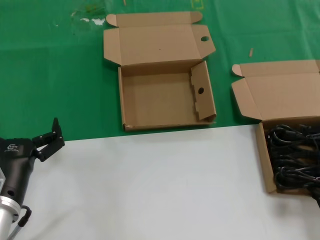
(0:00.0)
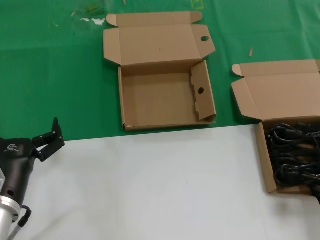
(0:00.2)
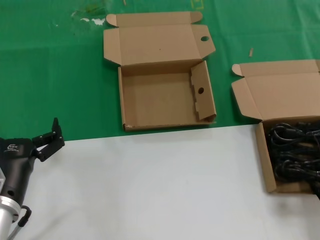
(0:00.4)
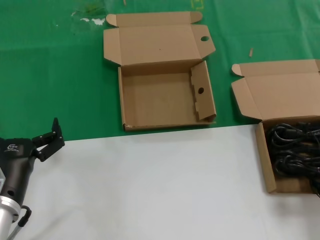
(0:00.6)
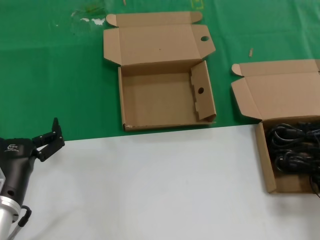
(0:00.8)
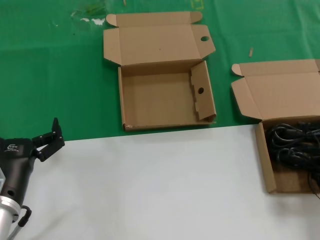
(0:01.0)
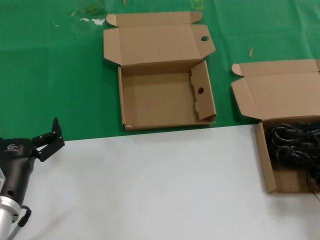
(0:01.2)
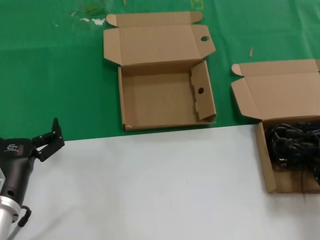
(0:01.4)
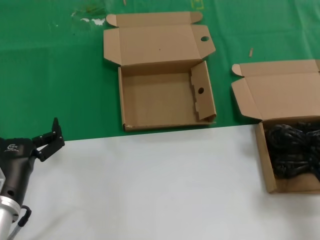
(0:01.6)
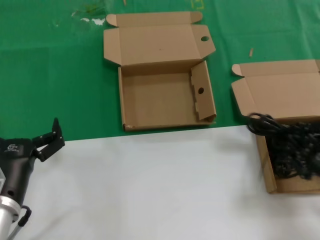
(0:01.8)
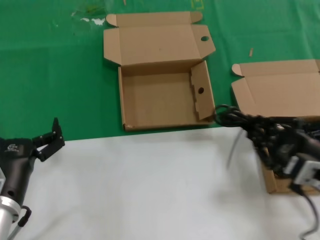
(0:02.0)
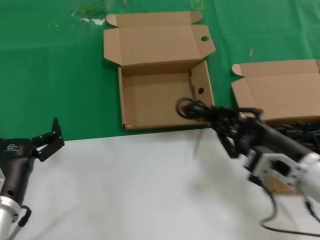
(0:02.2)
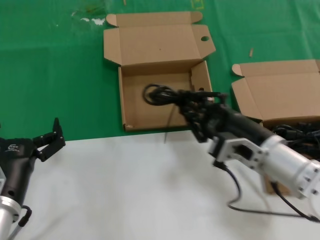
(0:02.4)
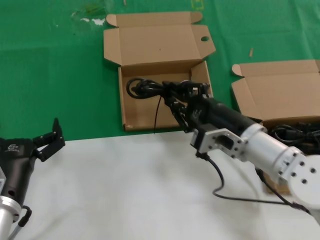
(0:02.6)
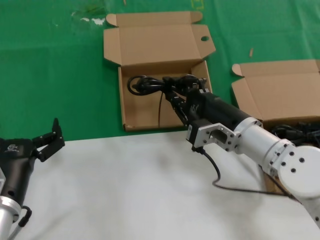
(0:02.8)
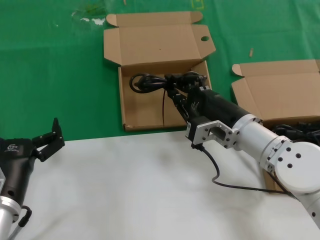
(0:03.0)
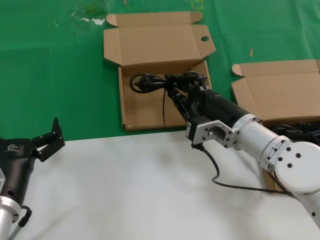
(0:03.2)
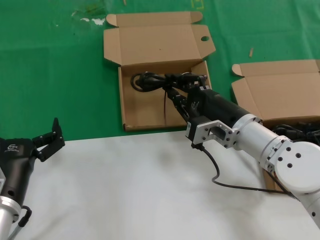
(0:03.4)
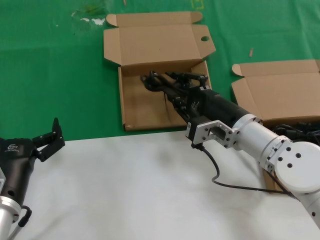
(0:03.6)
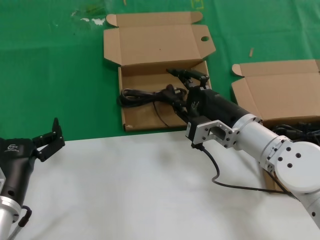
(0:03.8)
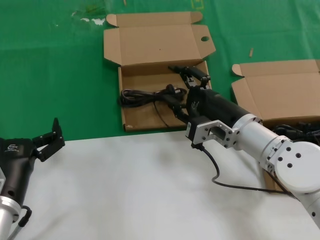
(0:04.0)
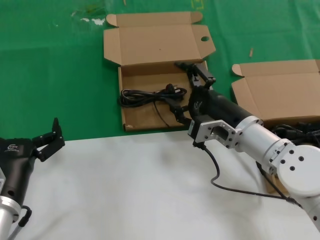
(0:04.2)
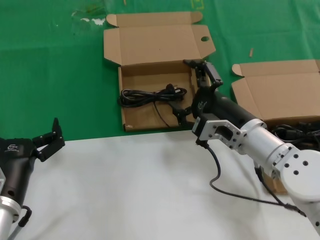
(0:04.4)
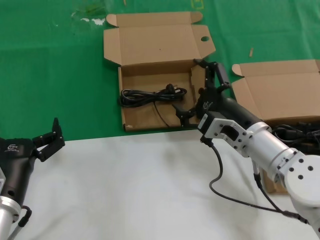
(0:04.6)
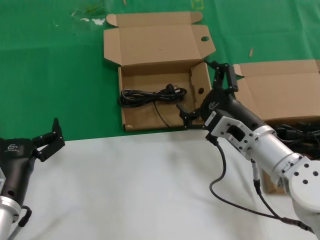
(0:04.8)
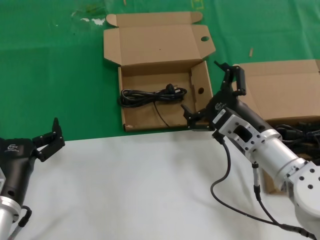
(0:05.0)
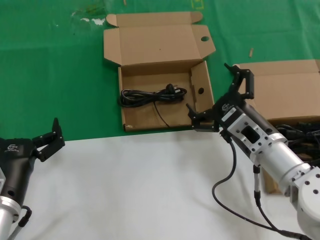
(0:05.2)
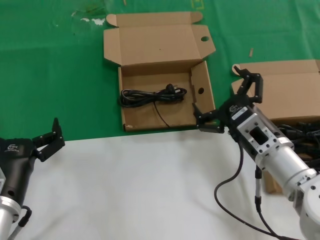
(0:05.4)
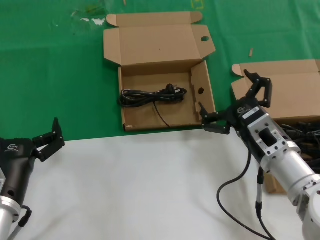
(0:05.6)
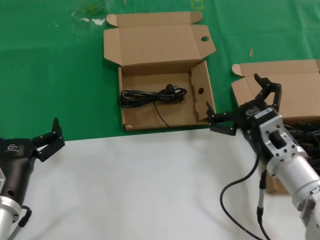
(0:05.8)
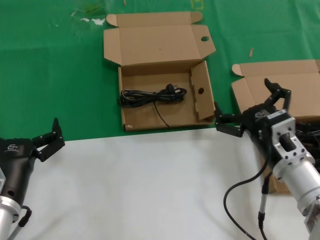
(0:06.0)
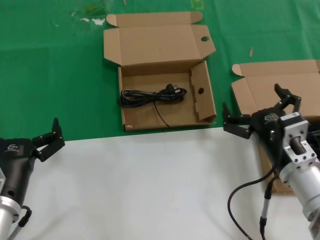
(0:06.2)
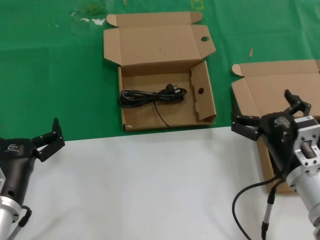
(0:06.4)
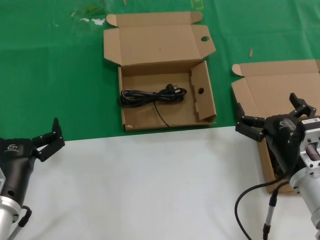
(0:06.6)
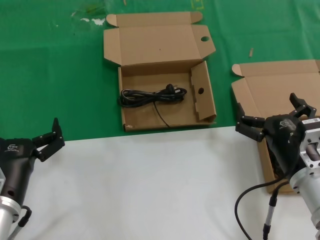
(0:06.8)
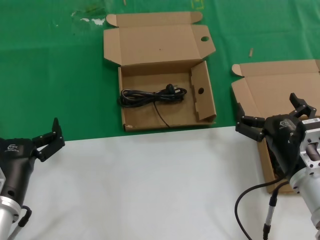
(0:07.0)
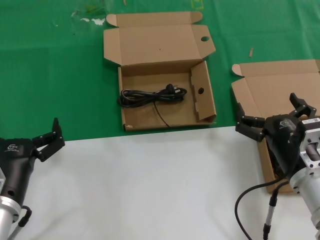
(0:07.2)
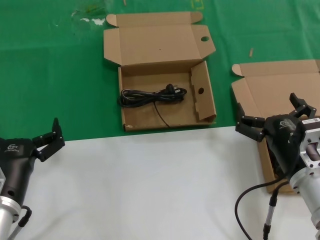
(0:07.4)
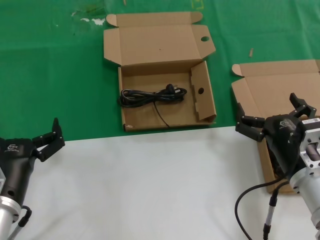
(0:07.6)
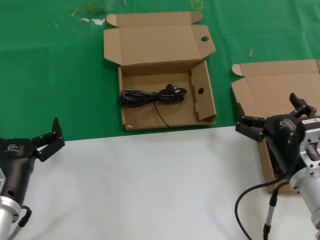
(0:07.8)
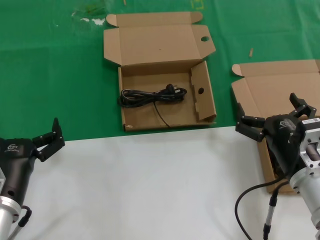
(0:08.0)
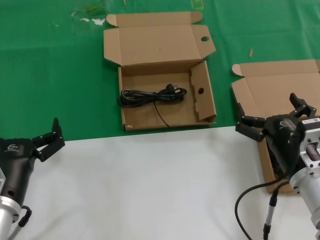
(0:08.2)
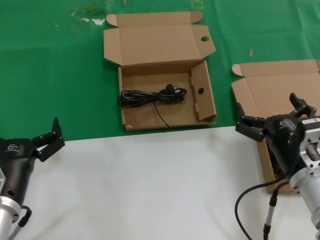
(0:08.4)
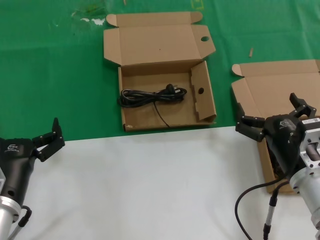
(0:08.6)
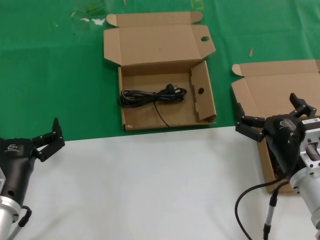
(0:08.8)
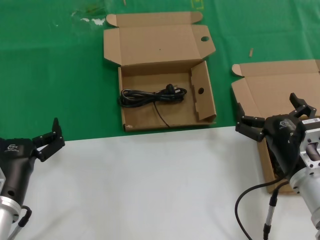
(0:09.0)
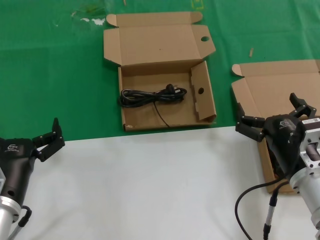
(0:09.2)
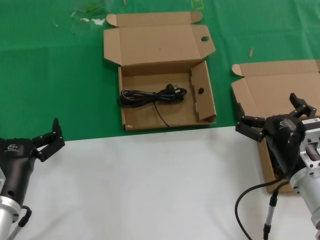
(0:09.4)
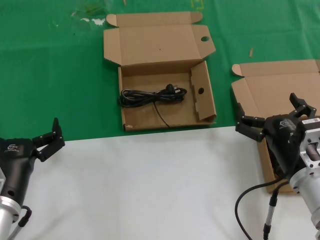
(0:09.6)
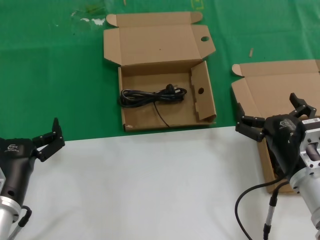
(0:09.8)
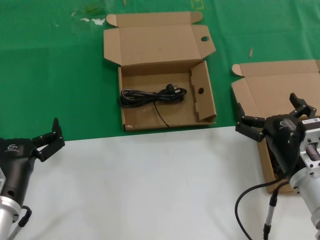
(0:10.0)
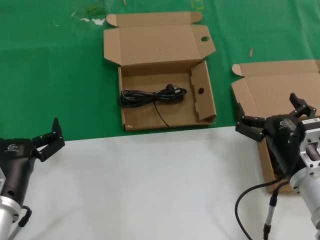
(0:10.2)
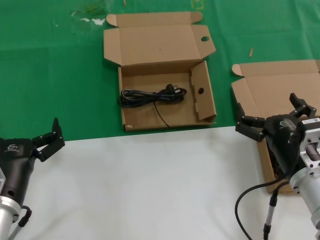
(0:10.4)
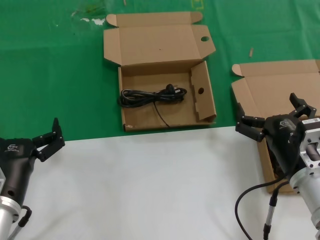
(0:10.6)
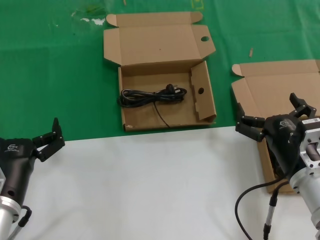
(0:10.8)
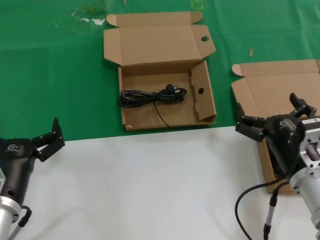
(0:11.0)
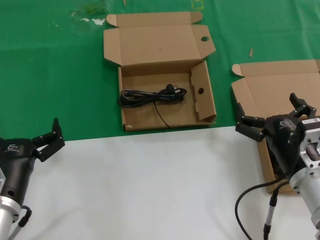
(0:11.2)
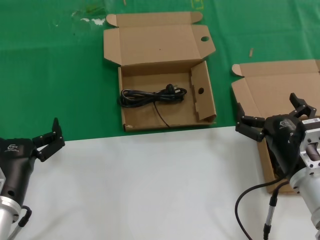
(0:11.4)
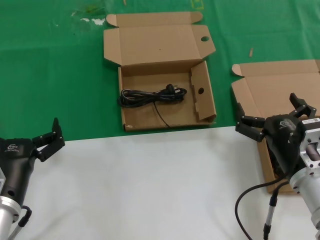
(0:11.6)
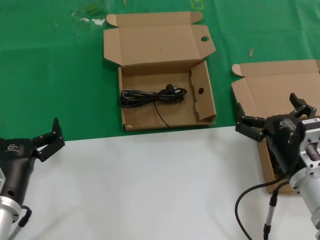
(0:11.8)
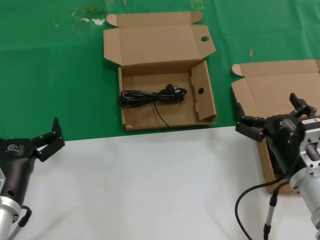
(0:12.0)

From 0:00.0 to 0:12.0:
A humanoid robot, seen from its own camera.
Task of the whole recording: take the parts from the box containing them and put them into an empty box.
Step, from 0:01.2 to 0:04.2: Place the data cable in the another box.
From 0:00.0 to 0:01.6: The hands stay close to where they were, moving slightly.
From 0:01.6 to 0:03.0: The right hand goes approximately 25 cm to the left and forward.
From 0:03.0 to 0:04.4: The hands make only small movements.
From 0:04.4 to 0:06.0: The right hand shifts some 5 cm backward.
From 0:06.0 to 0:07.6: There are only small adjustments of the hands.
From 0:07.6 to 0:12.0: The two hands keep their place.

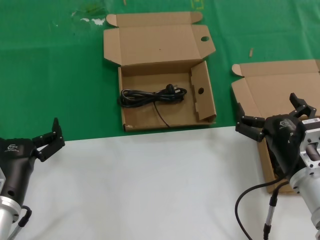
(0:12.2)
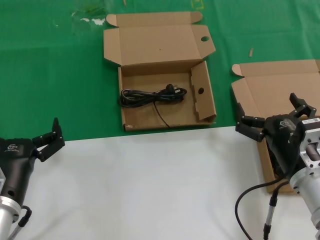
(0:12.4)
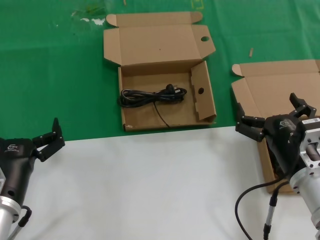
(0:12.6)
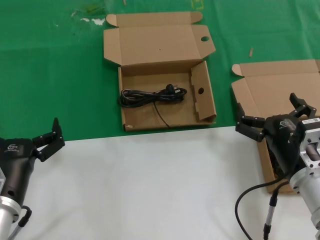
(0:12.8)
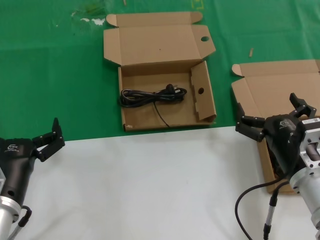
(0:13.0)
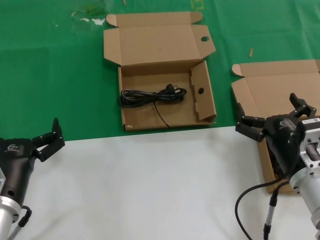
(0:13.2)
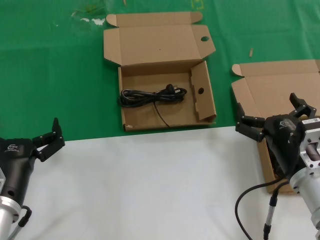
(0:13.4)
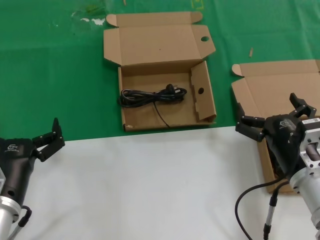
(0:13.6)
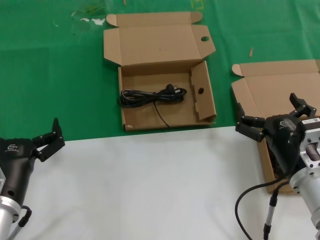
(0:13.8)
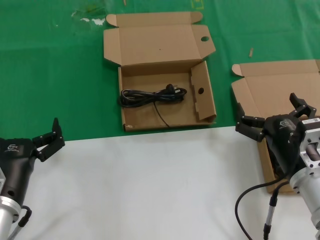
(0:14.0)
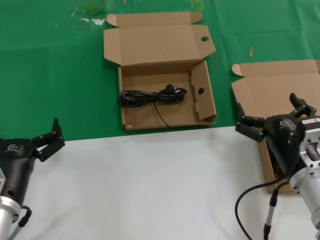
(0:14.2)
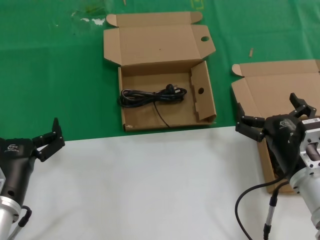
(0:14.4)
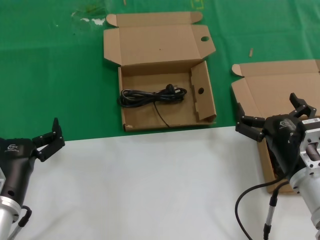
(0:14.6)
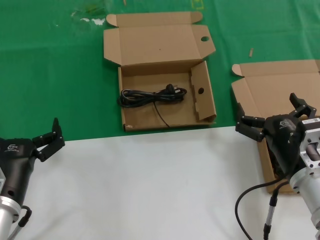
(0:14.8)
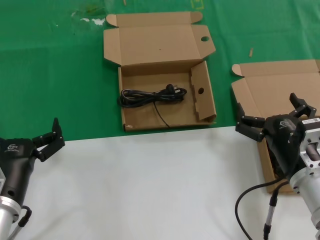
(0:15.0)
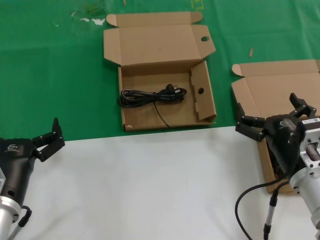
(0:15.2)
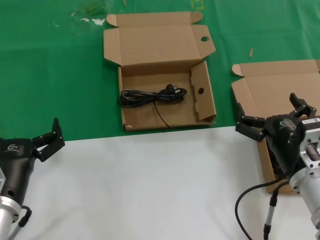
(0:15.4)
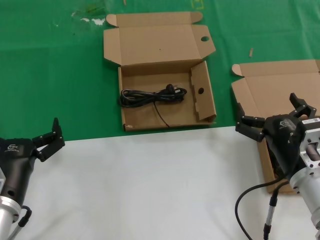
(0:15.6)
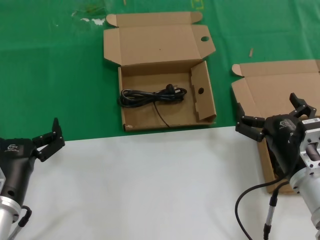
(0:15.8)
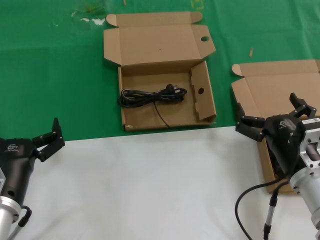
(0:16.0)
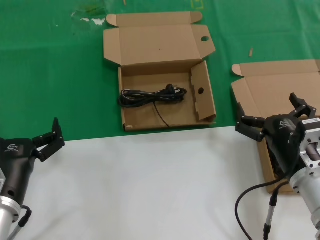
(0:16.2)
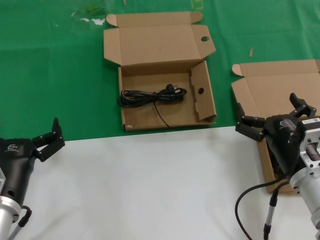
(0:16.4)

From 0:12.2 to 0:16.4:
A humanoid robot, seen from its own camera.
Task of the whole recording: take the parts from the box containing them and put them into an empty box.
From 0:12.2 to 0:16.4: Both hands stay put.

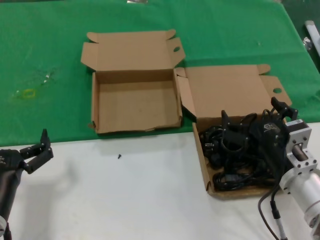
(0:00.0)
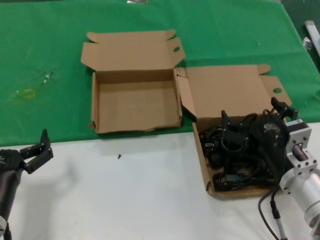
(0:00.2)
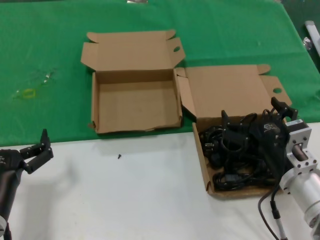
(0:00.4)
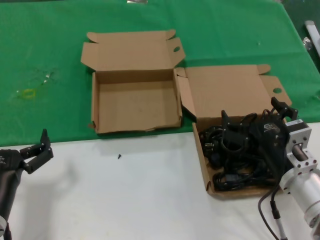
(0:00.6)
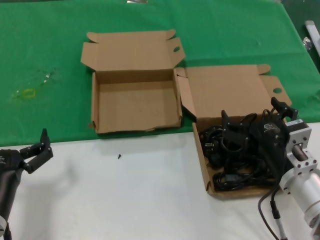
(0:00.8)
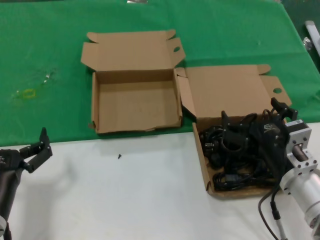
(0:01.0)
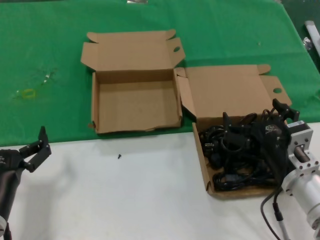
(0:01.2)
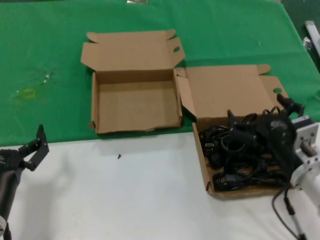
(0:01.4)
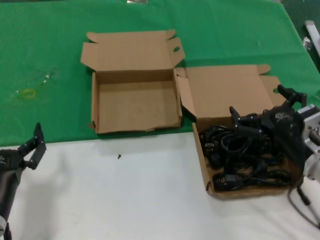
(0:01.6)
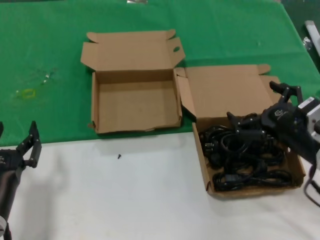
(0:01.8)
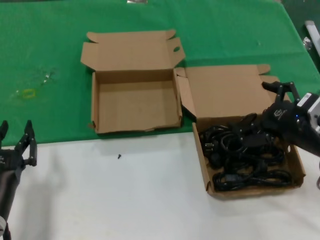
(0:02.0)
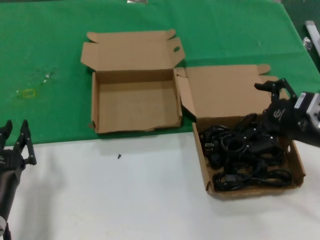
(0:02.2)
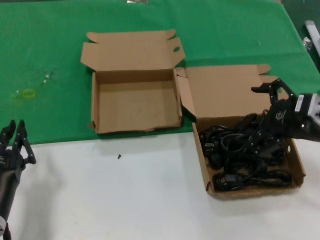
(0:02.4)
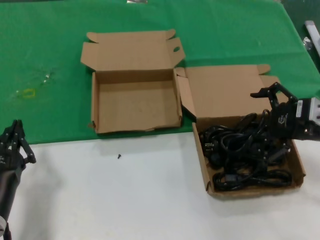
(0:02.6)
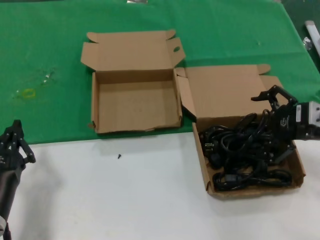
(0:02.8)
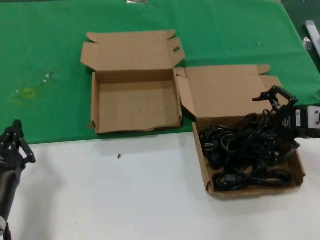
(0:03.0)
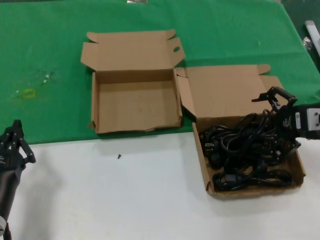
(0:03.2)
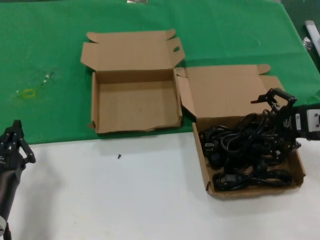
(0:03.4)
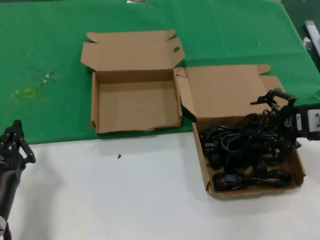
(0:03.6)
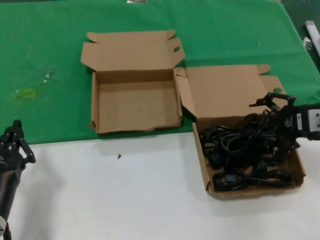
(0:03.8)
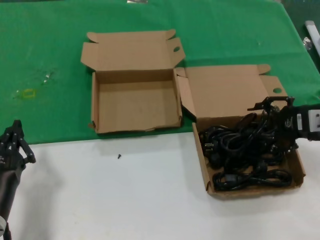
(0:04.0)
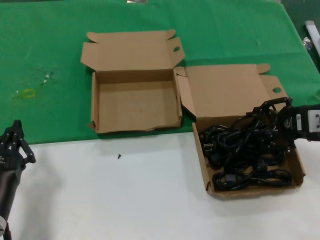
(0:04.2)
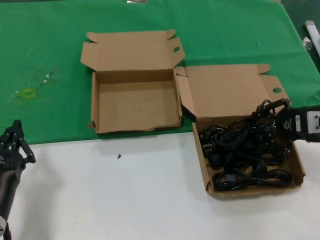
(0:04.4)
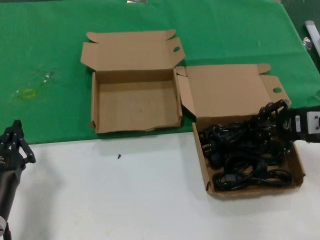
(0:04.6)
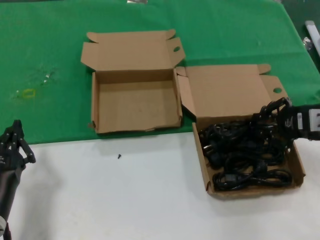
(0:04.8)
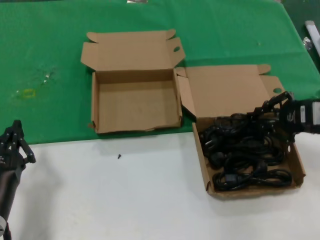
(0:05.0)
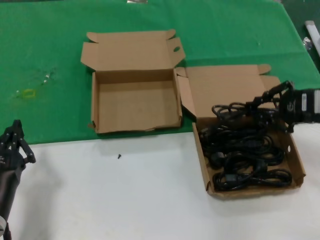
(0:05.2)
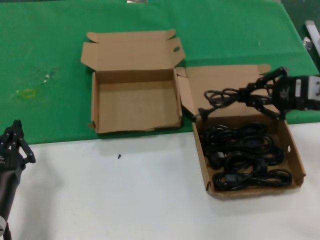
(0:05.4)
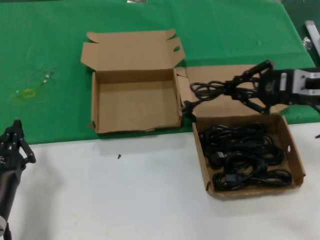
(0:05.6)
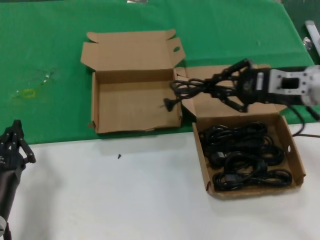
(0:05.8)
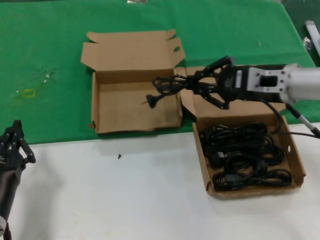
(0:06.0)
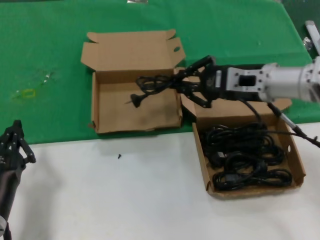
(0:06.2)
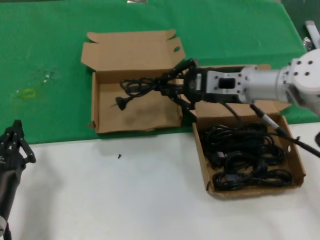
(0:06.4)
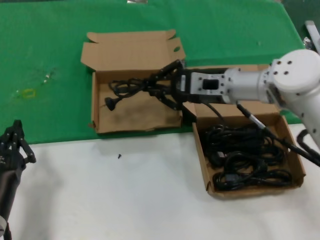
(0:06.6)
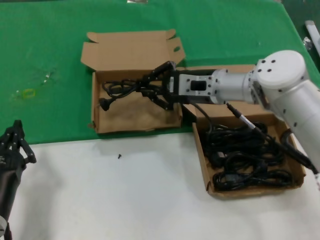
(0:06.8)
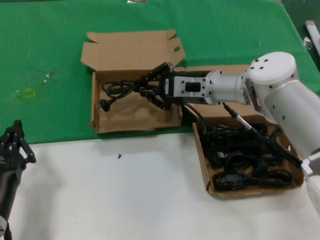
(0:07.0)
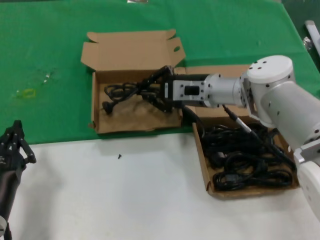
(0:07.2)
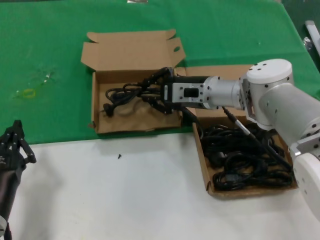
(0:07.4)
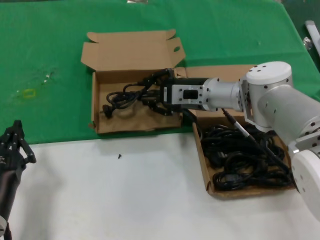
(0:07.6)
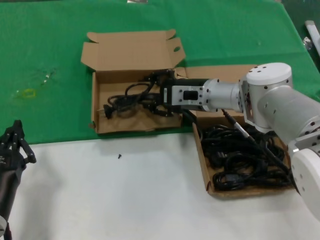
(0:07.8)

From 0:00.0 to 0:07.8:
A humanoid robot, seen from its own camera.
Task of the whole recording: take the parts from the box containing them and put them into an empty box.
Step, from 0:00.0 to 0:04.6: Grasp the data cable.
From 0:00.0 to 0:01.6: The hands move only a little.
From 0:01.6 to 0:03.2: The right hand travels to the right, forward and upward by some 15 cm.
From 0:03.2 to 0:04.6: The two hands keep their place.
From 0:04.6 to 0:06.2: The right hand travels to the left and forward by about 15 cm.
From 0:06.2 to 0:07.8: The right hand goes approximately 15 cm to the left, forward and downward.
